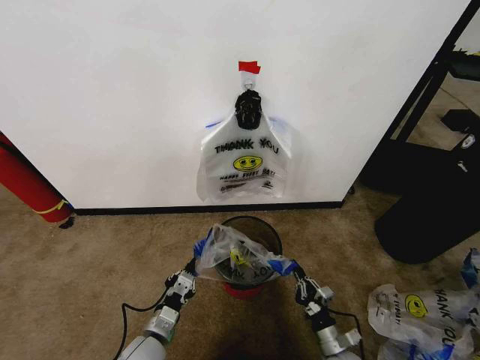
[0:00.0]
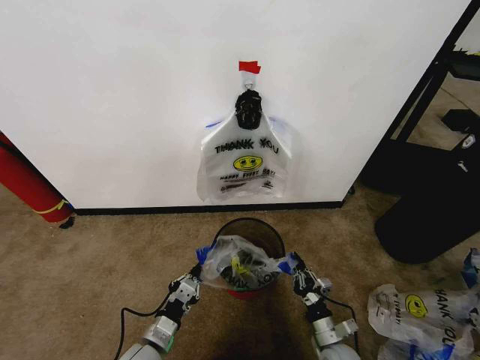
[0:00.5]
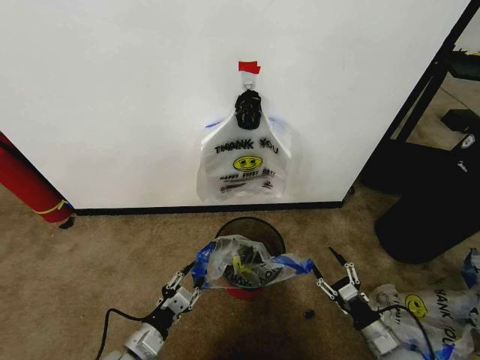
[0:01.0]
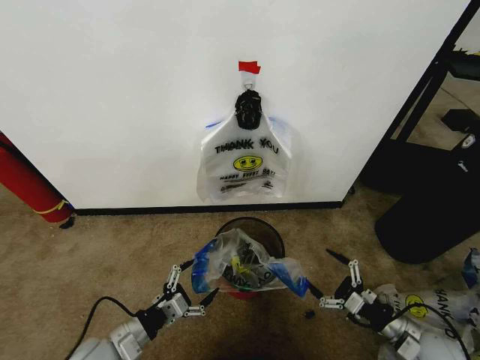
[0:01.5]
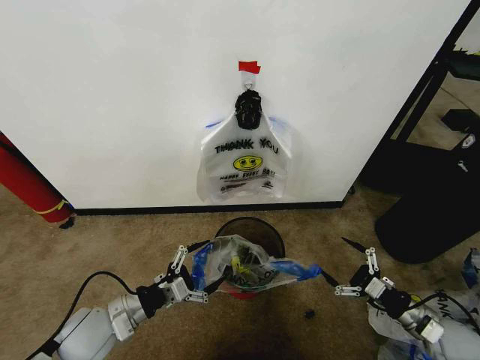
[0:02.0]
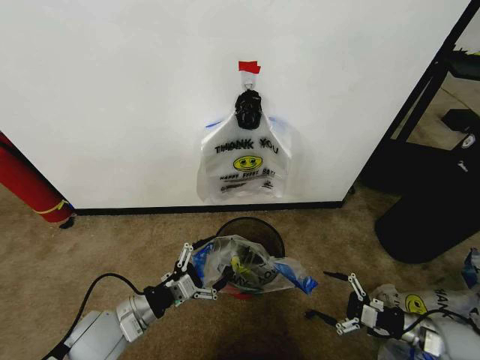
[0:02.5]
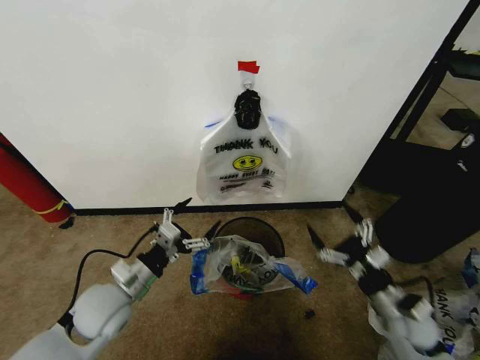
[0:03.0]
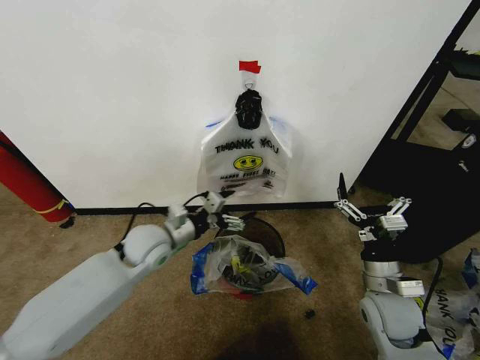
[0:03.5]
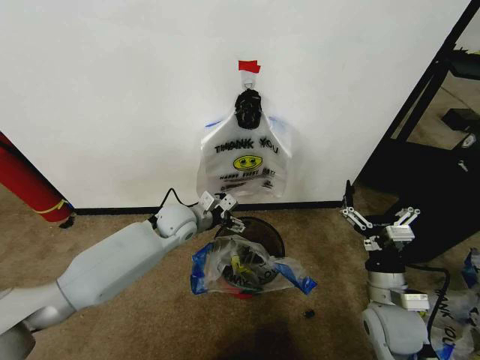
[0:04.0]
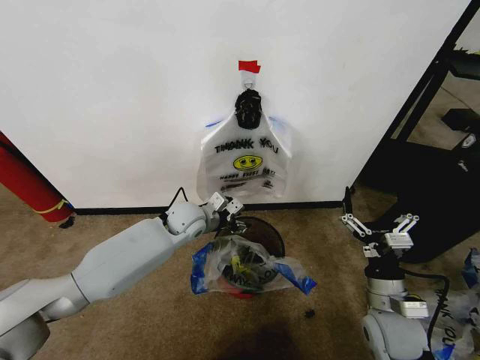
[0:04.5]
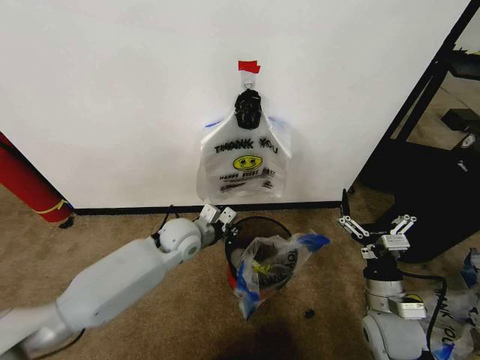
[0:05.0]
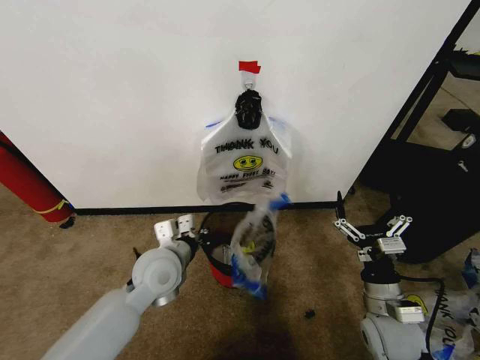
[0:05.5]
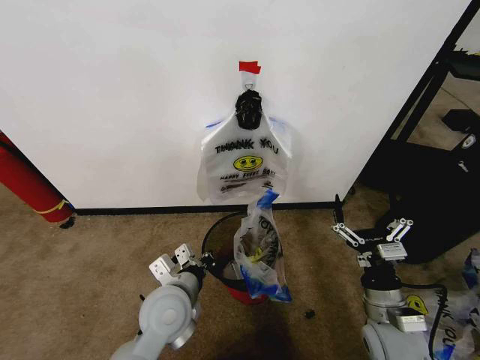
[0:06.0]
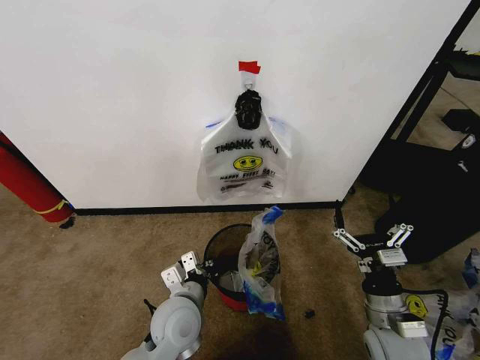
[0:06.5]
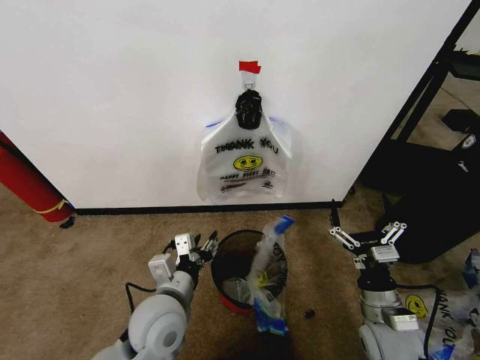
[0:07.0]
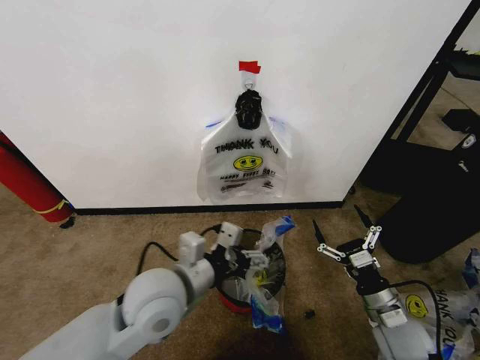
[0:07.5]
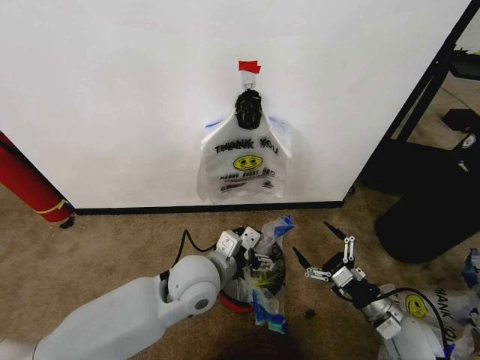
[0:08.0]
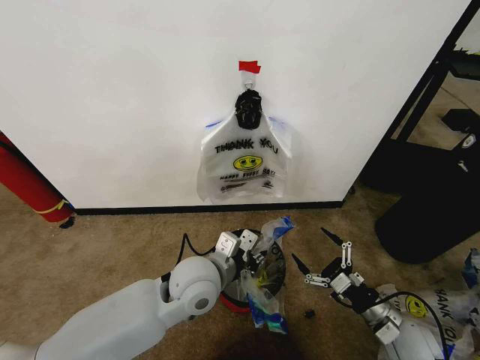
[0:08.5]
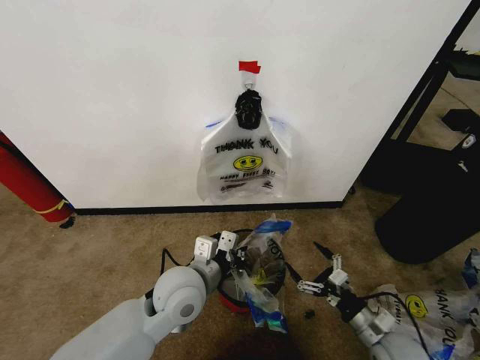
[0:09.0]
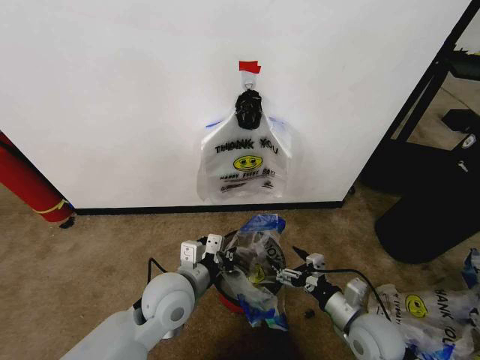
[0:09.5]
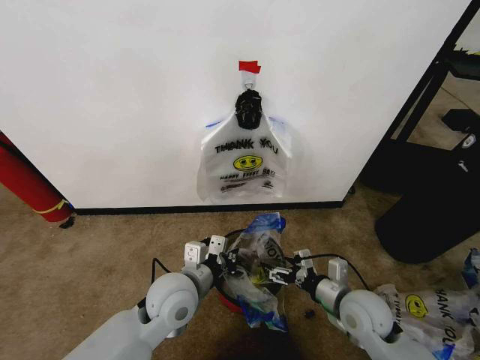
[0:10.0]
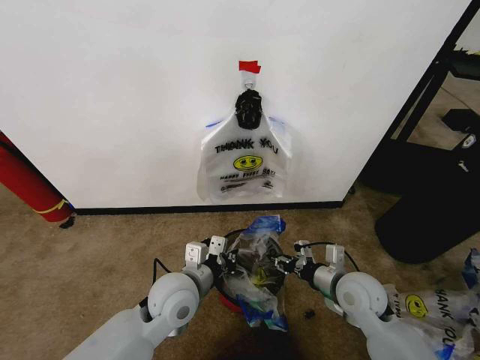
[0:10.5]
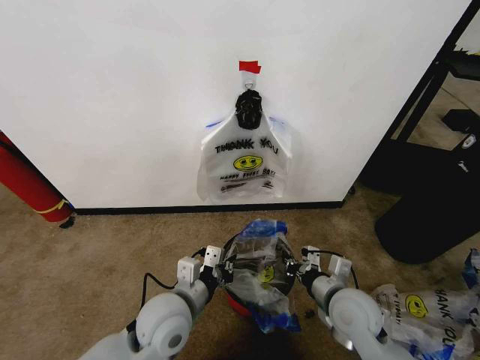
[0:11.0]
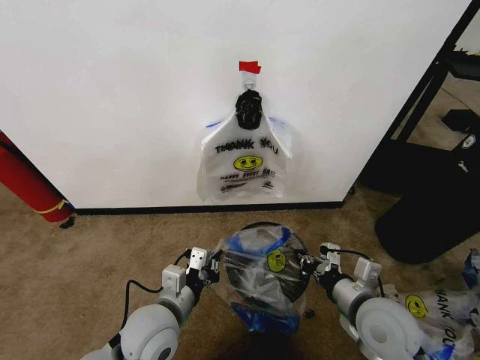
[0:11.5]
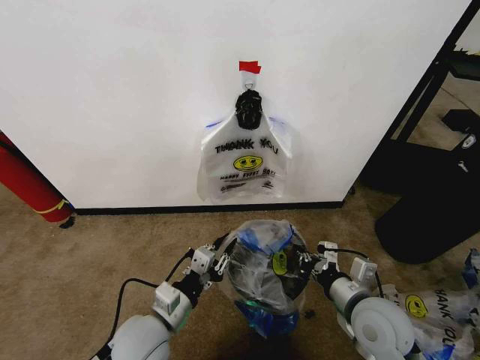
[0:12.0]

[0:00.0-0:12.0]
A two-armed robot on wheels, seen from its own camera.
Task of the whole recording: Pick up the garbage bag from the wall and place it over the trash bin.
0:00.0 to 0:02.0: The right gripper travels to the right and upward by roughly 25 cm, and opens, while the left gripper moves upward and to the left, approximately 15 cm, and opens.
0:02.0 to 0:04.0: The left gripper travels forward and to the right by some 25 cm. The right gripper heads to the left and upward, covering roughly 20 cm.
0:04.0 to 0:06.0: The left gripper is displaced backward by some 20 cm, and closes up.
0:06.0 to 0:08.0: The grippers both shift to the right by some 5 cm. The left gripper opens.
0:08.0 to 0:10.0: The left gripper ends up some 5 cm from where it was, and closes up, while the right gripper moves to the left, approximately 10 cm.
0:10.0 to 0:12.0: The right gripper heads upward, covering some 5 cm, and closes its fingers, while the left gripper travels backward by some 5 cm.

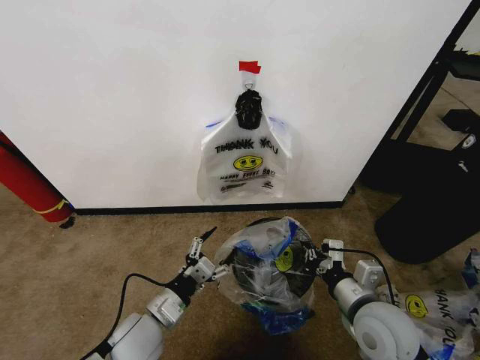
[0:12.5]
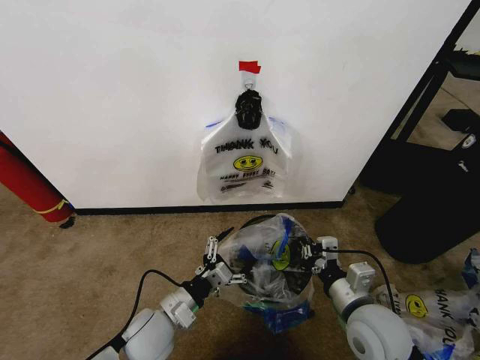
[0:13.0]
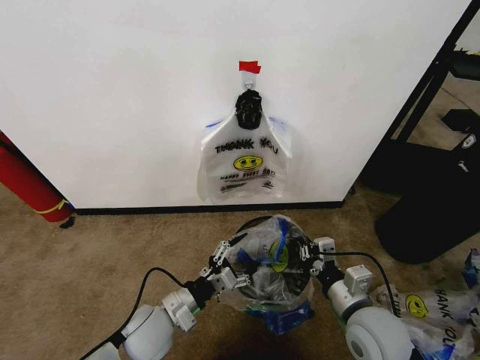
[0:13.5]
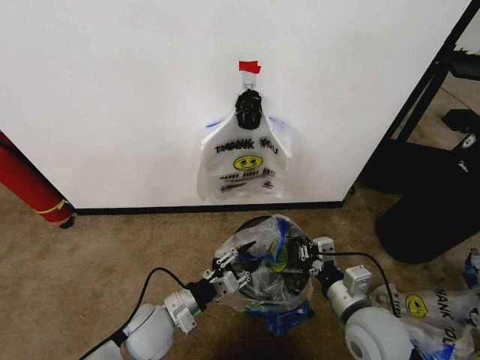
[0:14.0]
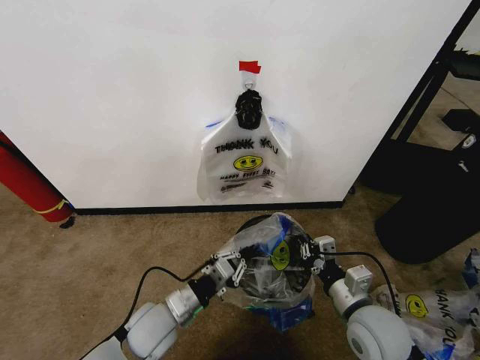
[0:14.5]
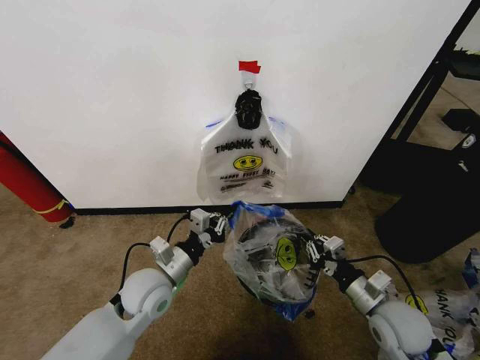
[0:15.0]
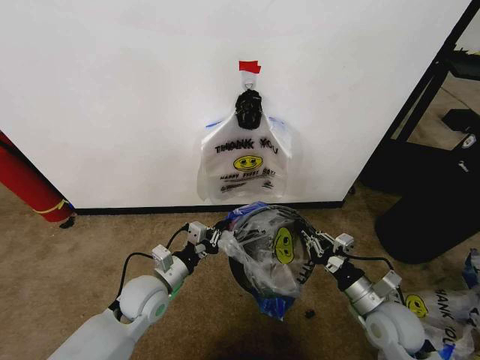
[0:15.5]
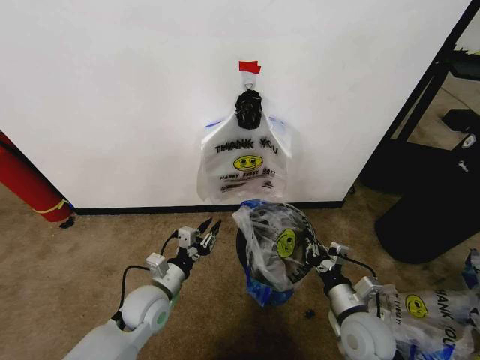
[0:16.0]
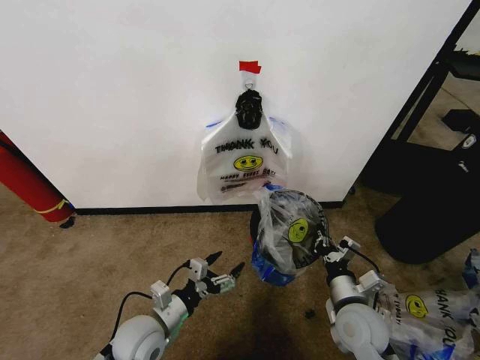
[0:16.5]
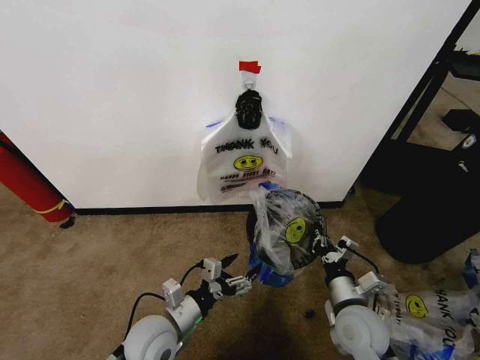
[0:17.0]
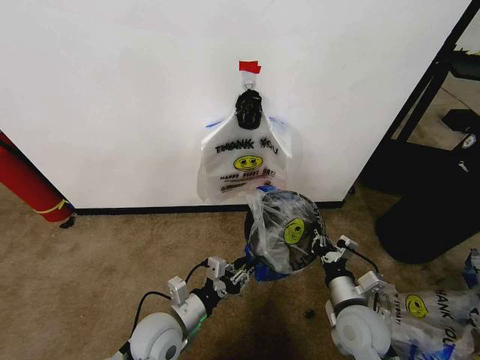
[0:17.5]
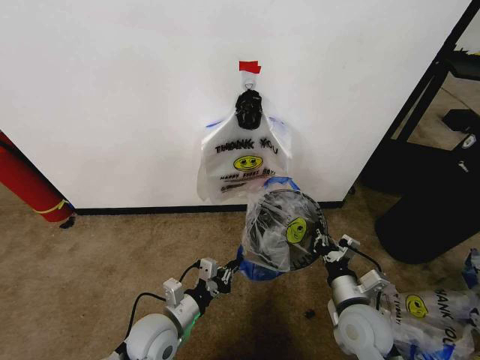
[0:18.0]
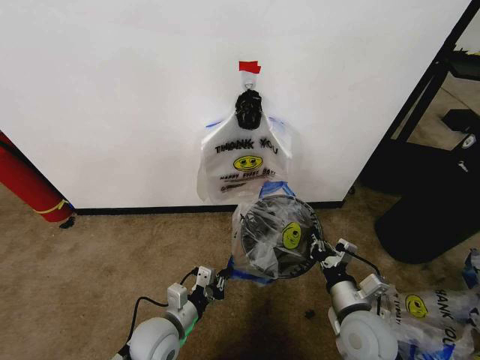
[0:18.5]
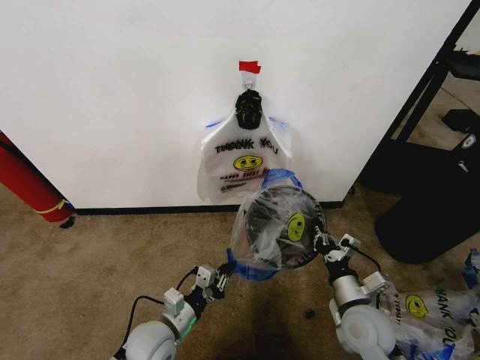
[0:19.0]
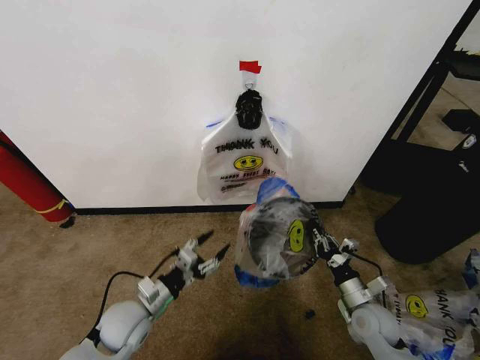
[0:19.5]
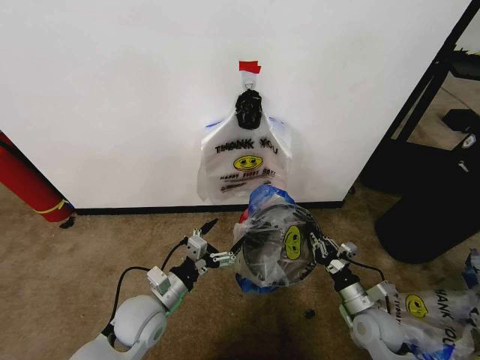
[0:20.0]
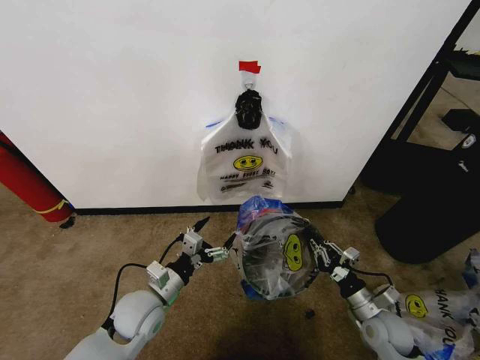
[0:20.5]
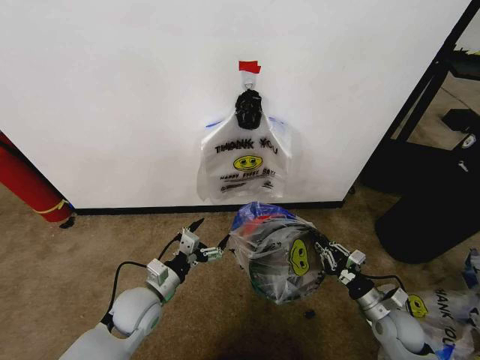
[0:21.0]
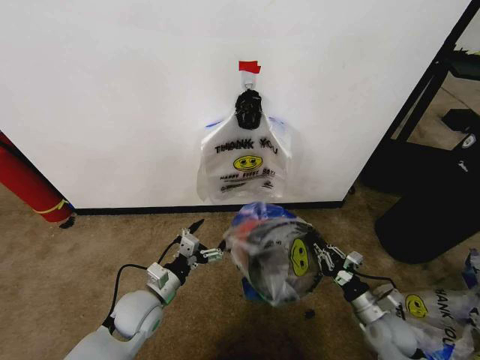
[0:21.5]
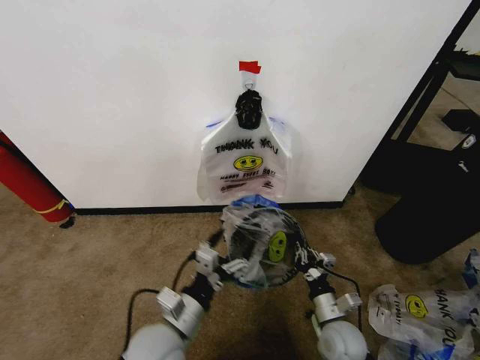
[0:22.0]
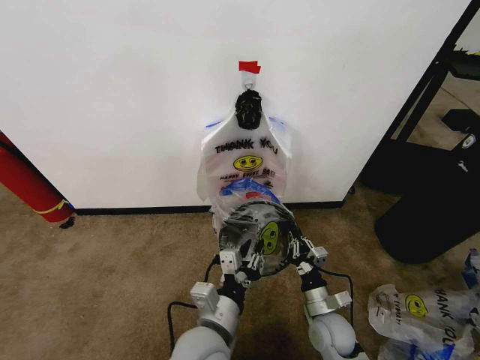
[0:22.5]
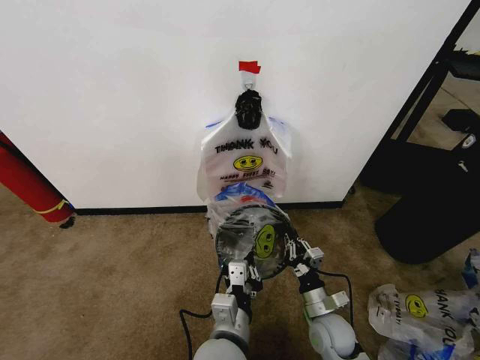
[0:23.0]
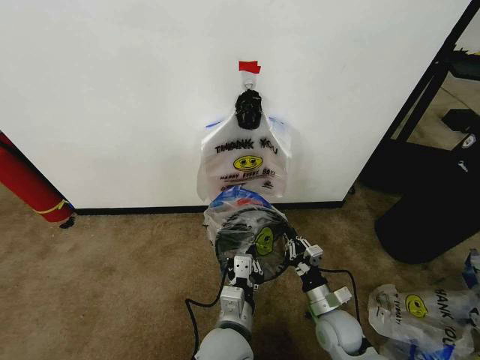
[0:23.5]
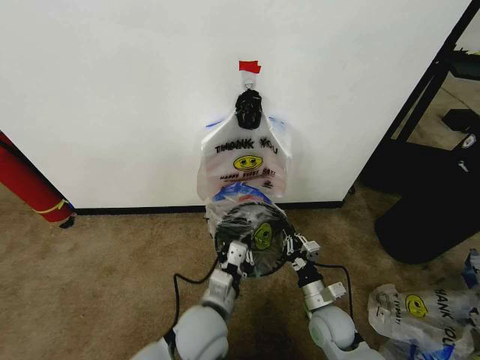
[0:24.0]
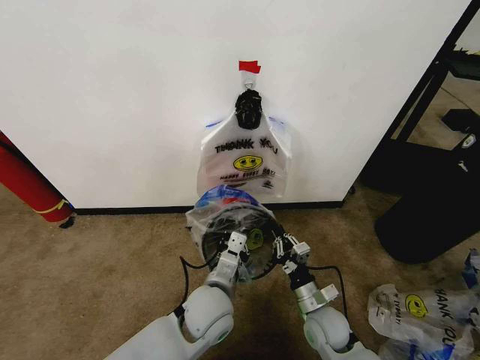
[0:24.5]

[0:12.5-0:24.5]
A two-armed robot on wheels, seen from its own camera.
Task of the whole recording: Pick up the garbage bag from the wall and place it over the trash bin.
0:12.5 to 0:14.5: The left gripper closes.
0:14.5 to 0:16.5: The right gripper goes approximately 5 cm downward. Meanwhile the left gripper moves approximately 5 cm forward and comes back, and opens its fingers.
0:16.5 to 0:18.5: The left gripper closes its fingers.
0:18.5 to 0:20.5: The left gripper changes place by roughly 5 cm, and opens its fingers. Meanwhile the right gripper travels to the right and downward by some 15 cm.
0:20.5 to 0:22.5: The right gripper goes about 10 cm to the left. Meanwhile the left gripper moves to the right and backward, approximately 15 cm, and closes its fingers.
0:22.5 to 0:24.5: The left gripper moves forward, some 10 cm.

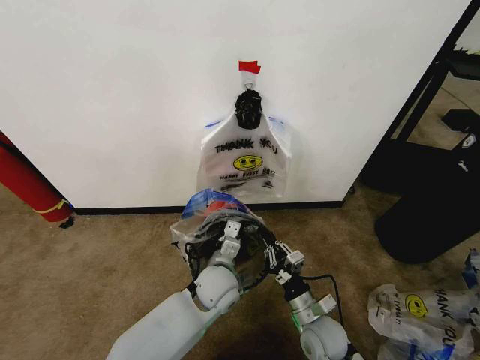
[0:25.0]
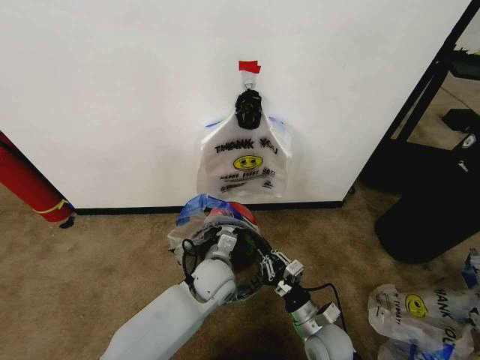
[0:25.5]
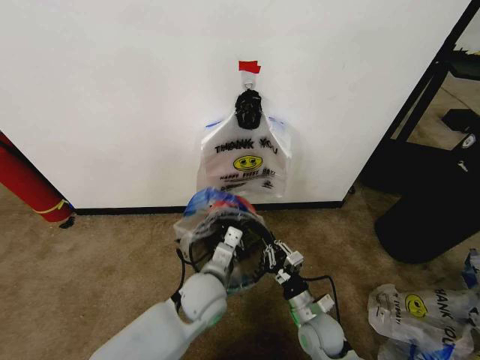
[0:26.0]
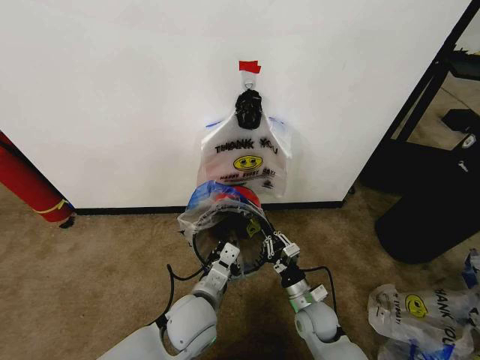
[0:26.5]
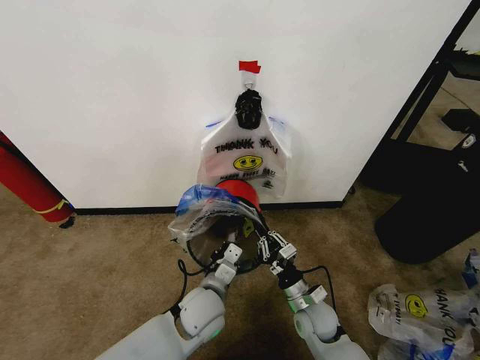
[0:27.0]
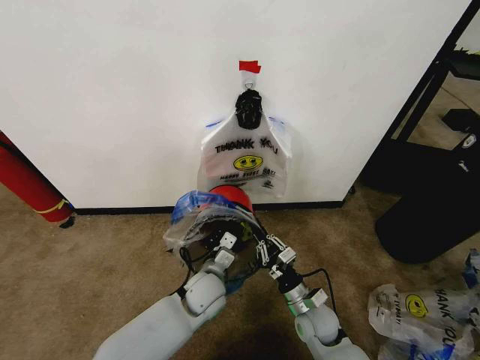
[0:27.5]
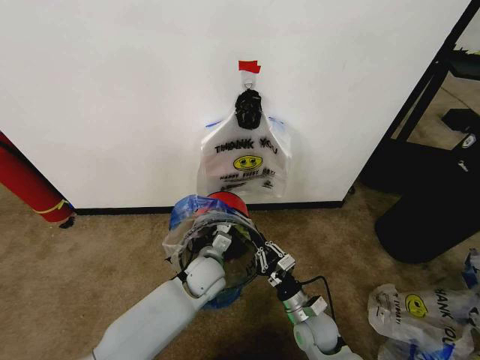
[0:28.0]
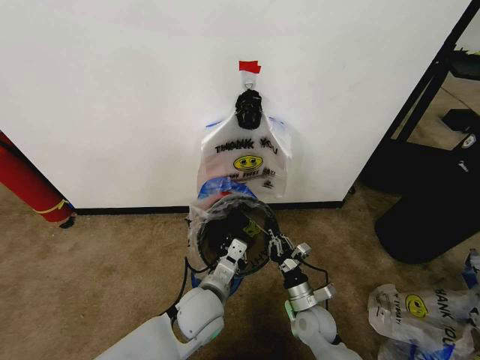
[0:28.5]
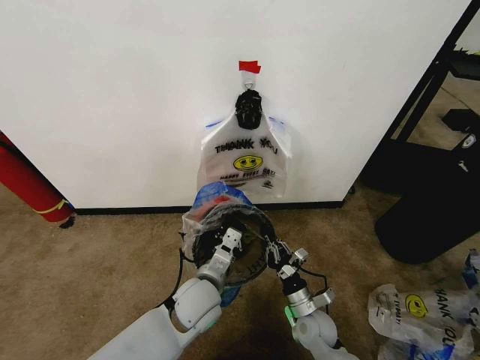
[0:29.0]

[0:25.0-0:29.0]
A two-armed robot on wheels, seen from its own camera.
Task of the whole recording: Pick up the garbage bag from the wall and place it over the trash bin.
0:27.0 to 0:29.0: The left gripper goes forward and returns, some 10 cm each way.
